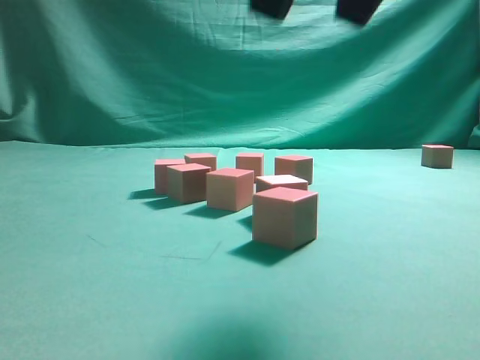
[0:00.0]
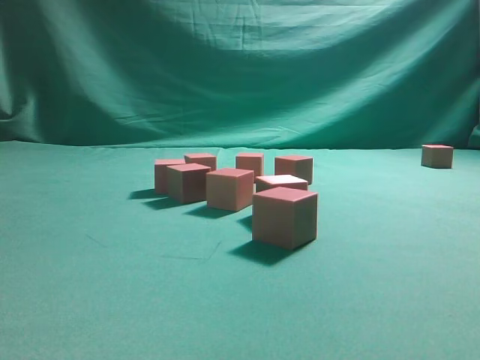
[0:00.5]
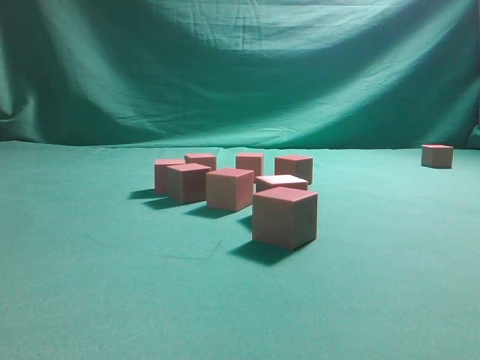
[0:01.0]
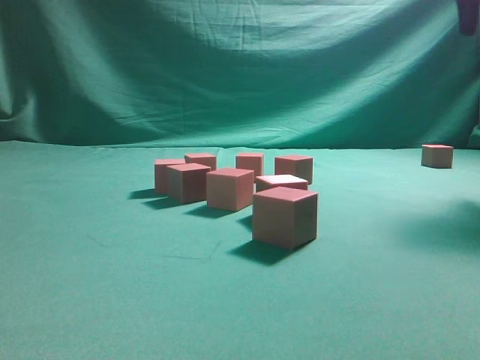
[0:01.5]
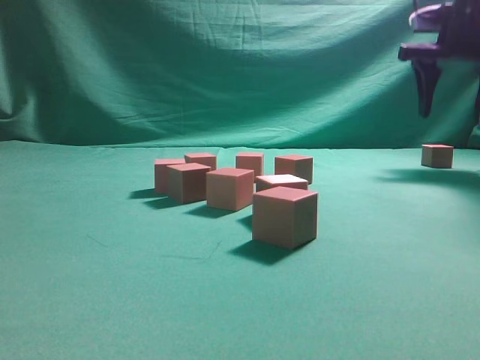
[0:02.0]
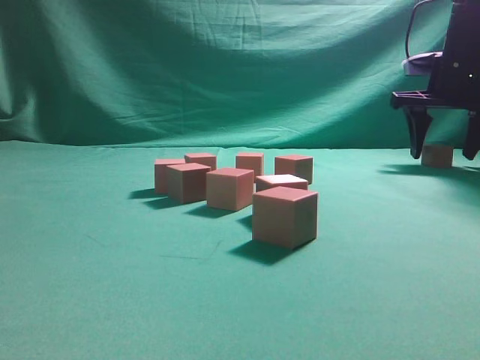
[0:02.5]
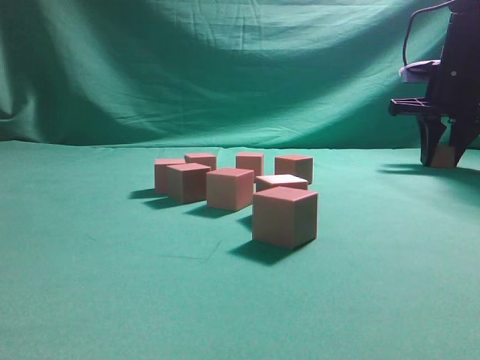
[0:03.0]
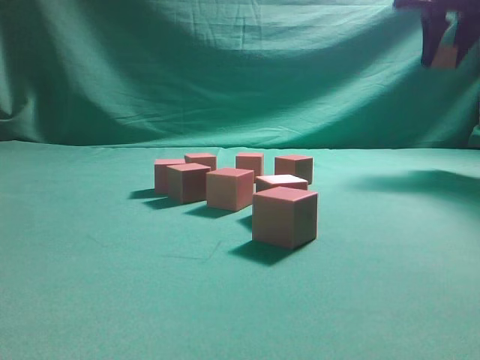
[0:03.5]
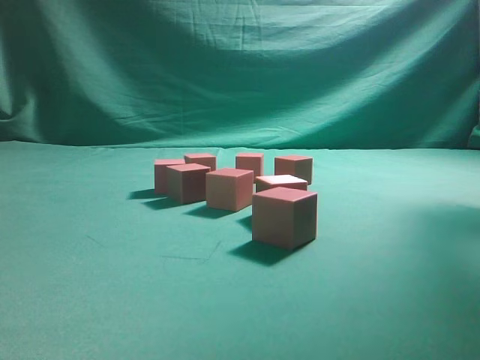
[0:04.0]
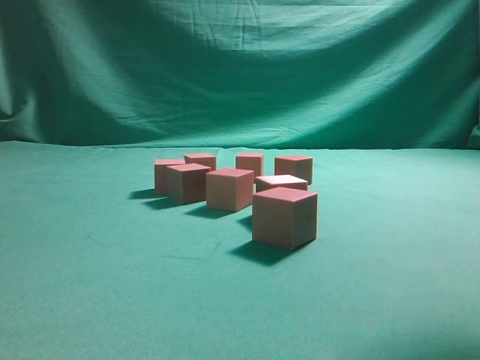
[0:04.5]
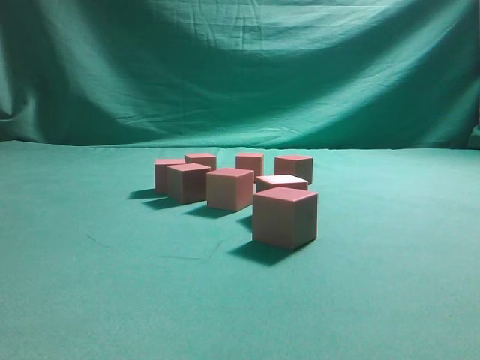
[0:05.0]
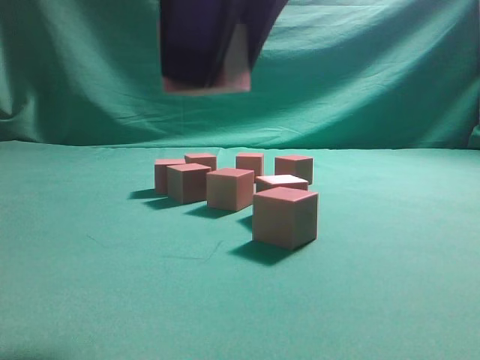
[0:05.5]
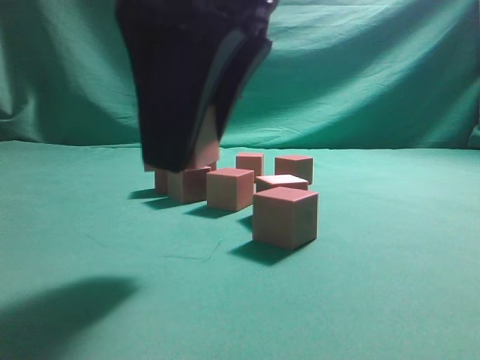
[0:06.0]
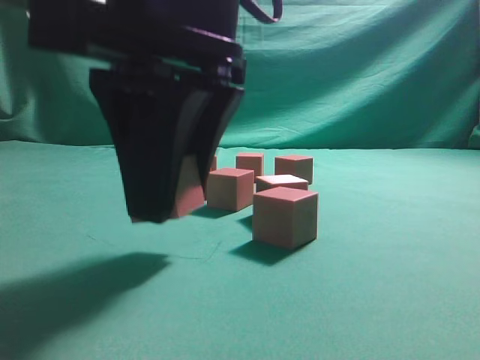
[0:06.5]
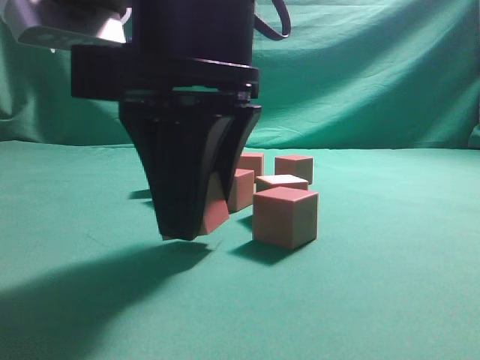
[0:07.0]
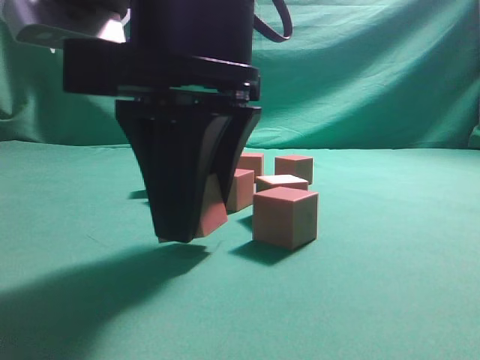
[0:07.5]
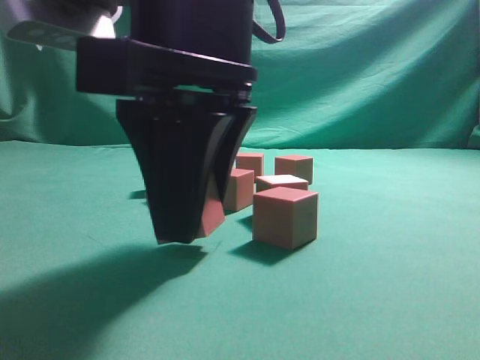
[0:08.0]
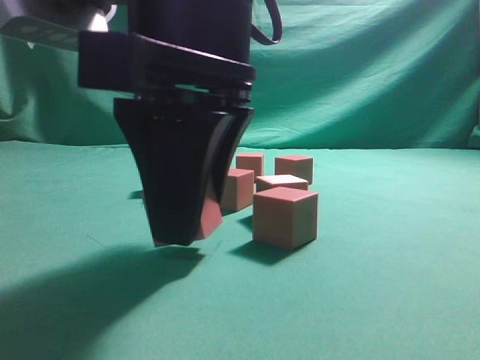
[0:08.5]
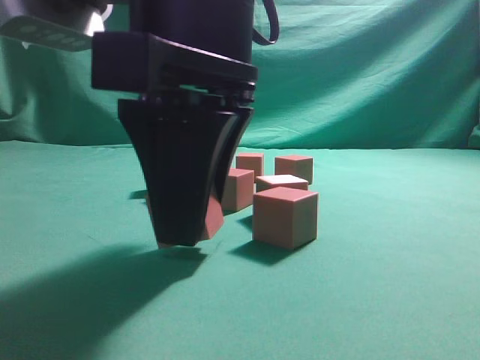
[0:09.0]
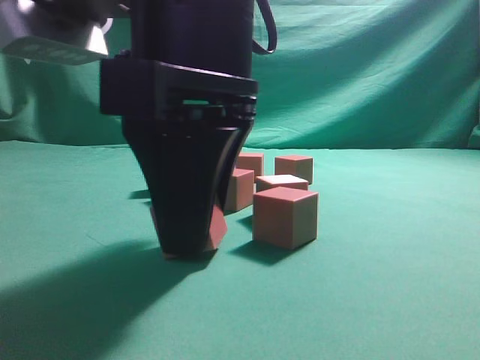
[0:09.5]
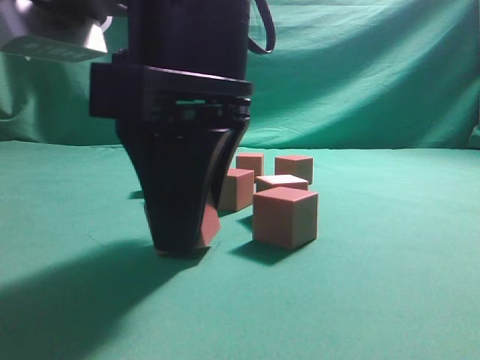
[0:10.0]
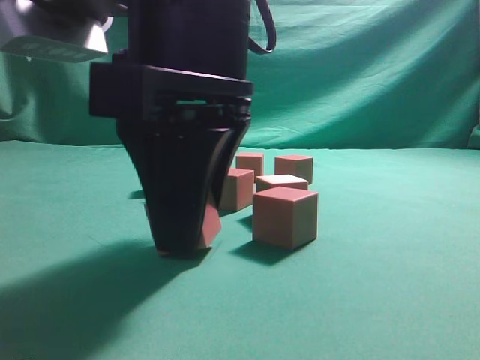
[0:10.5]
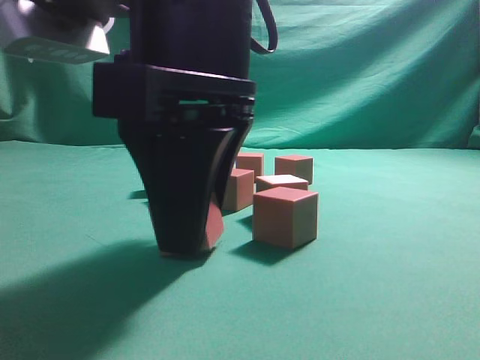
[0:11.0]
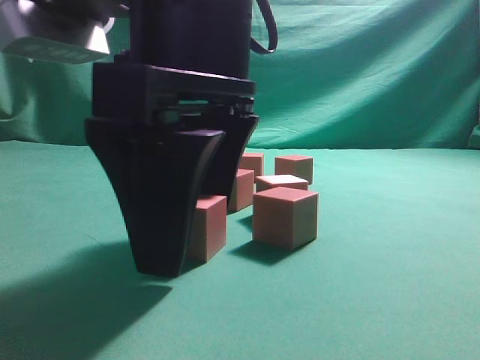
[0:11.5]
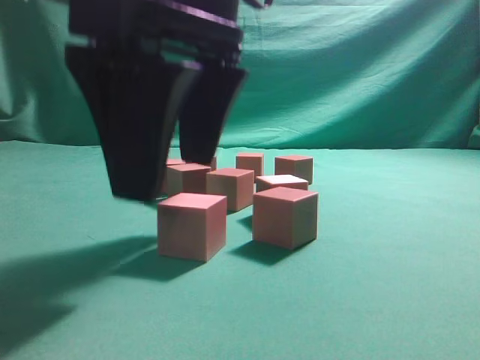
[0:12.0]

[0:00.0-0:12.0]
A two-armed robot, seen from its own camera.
Task of the whole recording: pick up the multiple cubes in two columns one by one and place them in another position on the table.
Step, 0:00.0 to 0:03.0: Pick up the block on the table.
0:00.0 to 0:02.0: The right gripper heads forward and to the right, covering approximately 35 cm.
0:02.0 to 0:04.0: The right gripper heads upward and backward, covering roughly 20 cm, and closes its fingers.
0:04.0 to 0:06.0: The right gripper travels to the left, backward and downward by about 40 cm.
0:06.0 to 0:10.0: The grippers make only small movements.
0:10.0 to 0:12.0: The right gripper opens its fingers.

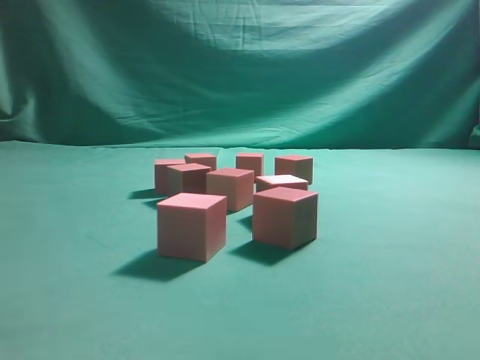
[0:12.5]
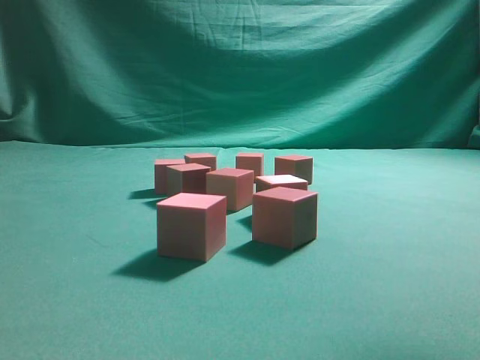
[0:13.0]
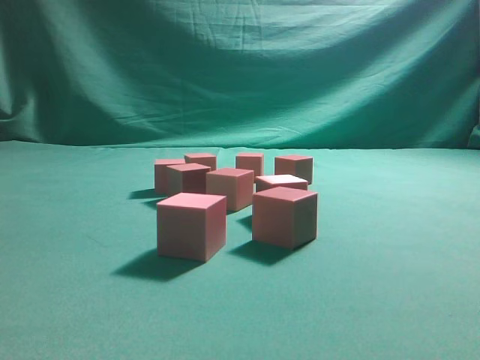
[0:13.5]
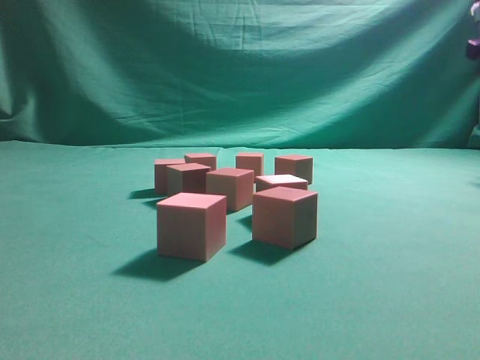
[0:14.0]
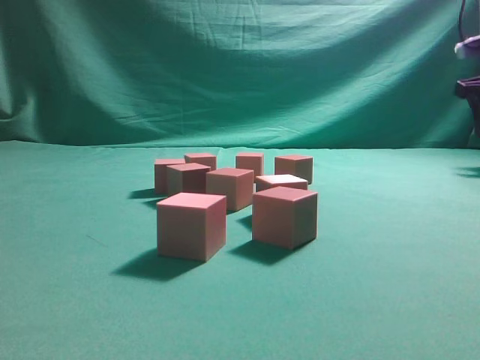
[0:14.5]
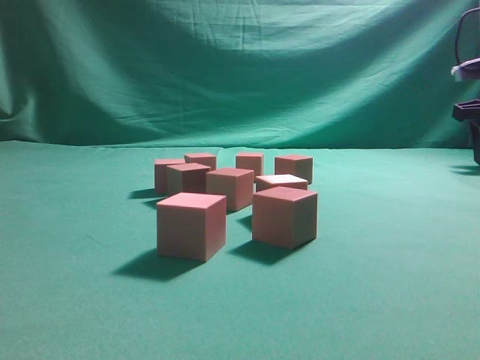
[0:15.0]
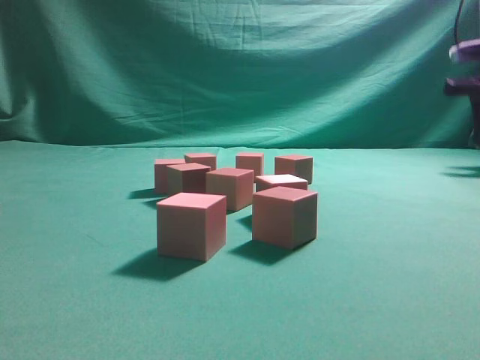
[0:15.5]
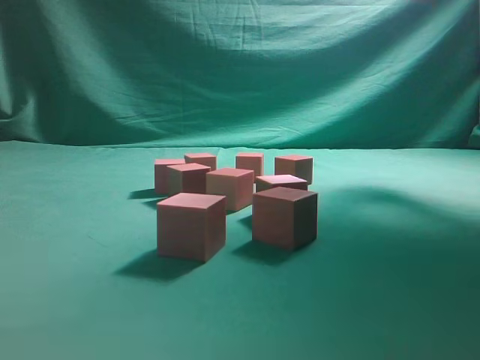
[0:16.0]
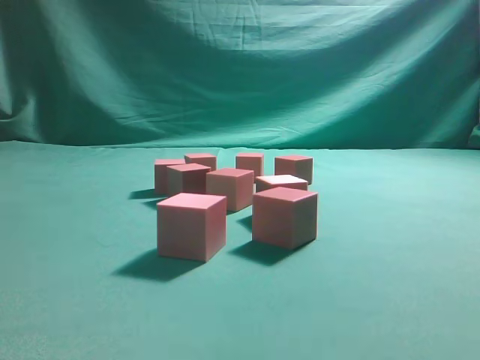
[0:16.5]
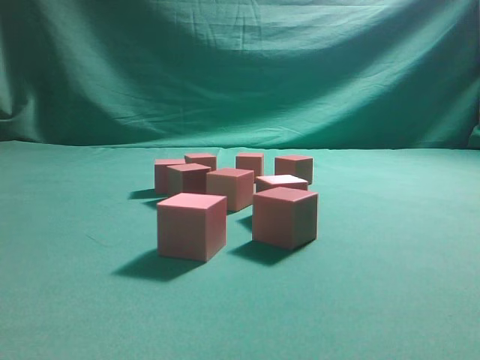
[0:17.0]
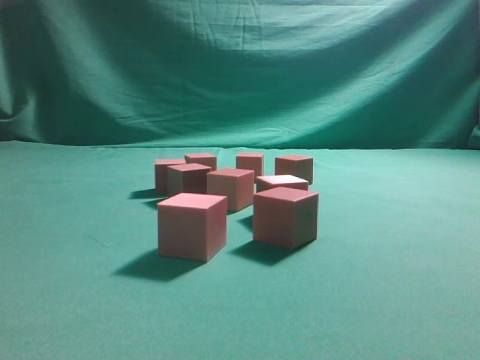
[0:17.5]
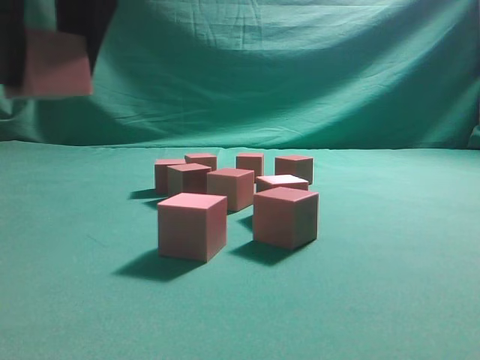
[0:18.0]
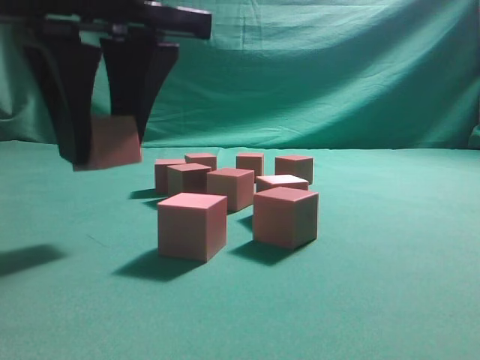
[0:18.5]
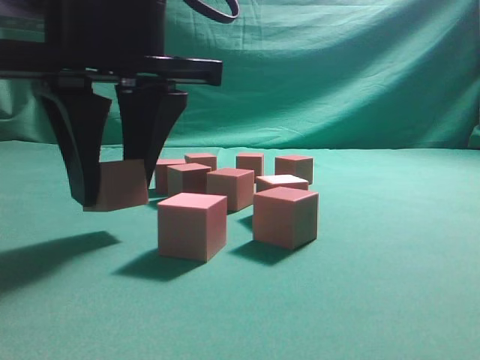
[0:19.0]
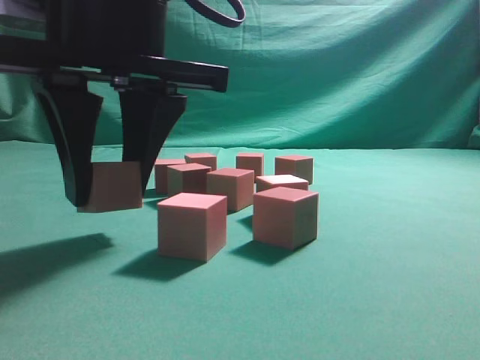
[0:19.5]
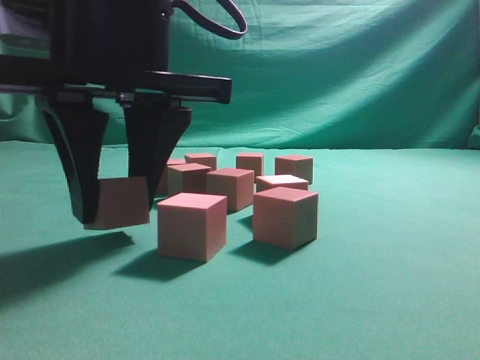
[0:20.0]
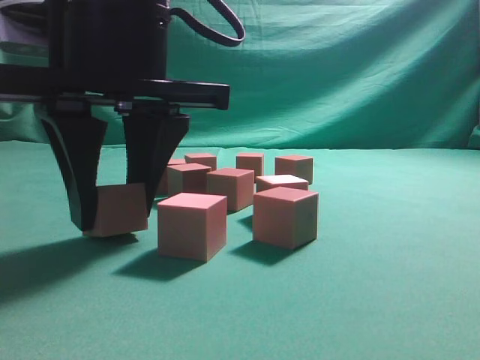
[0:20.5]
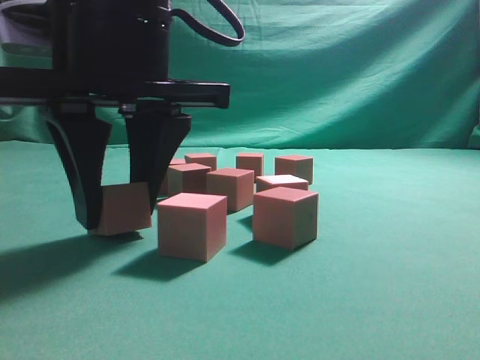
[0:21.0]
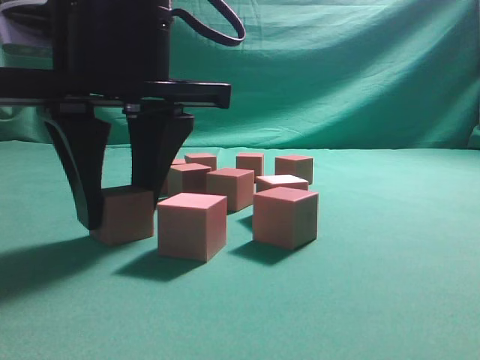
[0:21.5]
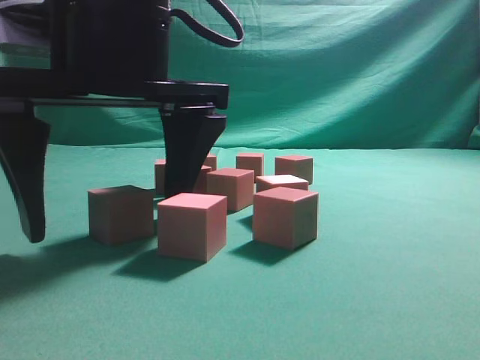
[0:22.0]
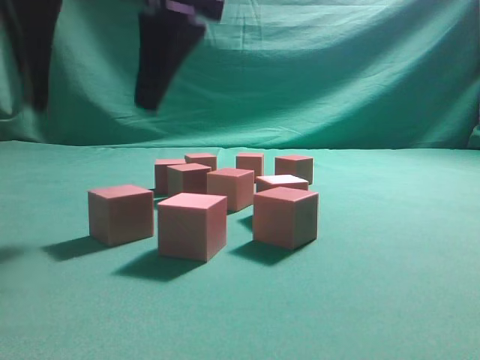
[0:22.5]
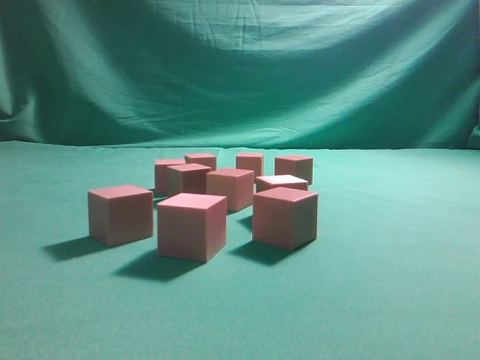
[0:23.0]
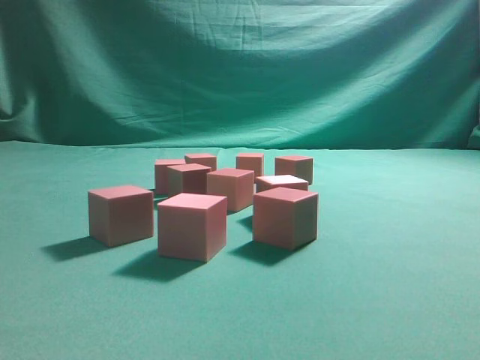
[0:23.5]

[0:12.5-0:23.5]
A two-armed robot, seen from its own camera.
Task of the whole recording: pick up the multiple cubes in two columns one by one and place them in another position on the table.
Step, 0:12.5 to 0:15.5: Pick up the block on the table.
Step, 0:16.0 to 0:22.0: Place the block at the correct position to assemble the letter S.
0:12.5 to 0:14.5: The right gripper travels to the right and forward by roughly 40 cm.
0:14.5 to 0:16.0: The right gripper travels upward and to the left by approximately 20 cm, and closes.
0:16.0 to 0:18.0: The right gripper travels to the left and backward by approximately 40 cm.
0:18.0 to 0:20.0: The right gripper is displaced downward and forward by roughly 10 cm.
0:20.0 to 0:21.5: The two grippers keep their place.
0:21.5 to 0:23.5: The right gripper is displaced upward and to the right by approximately 30 cm, and closes.
